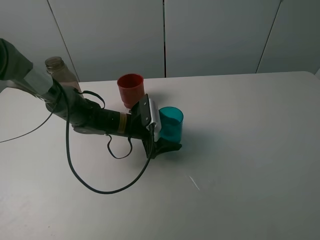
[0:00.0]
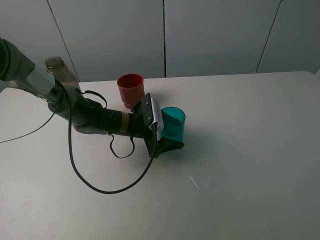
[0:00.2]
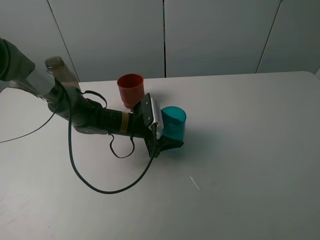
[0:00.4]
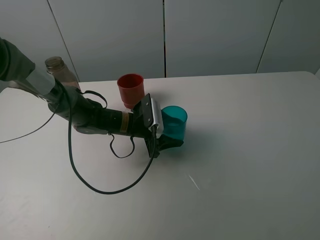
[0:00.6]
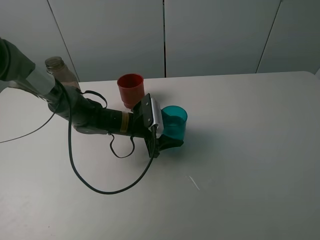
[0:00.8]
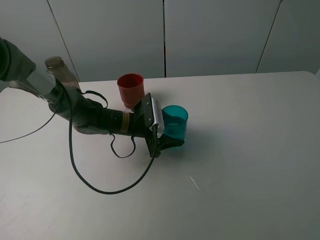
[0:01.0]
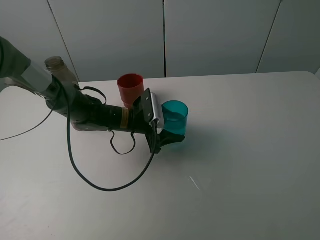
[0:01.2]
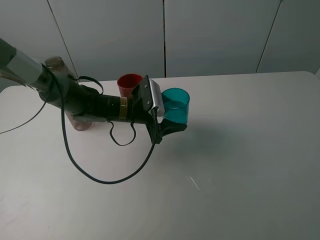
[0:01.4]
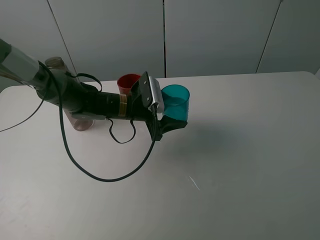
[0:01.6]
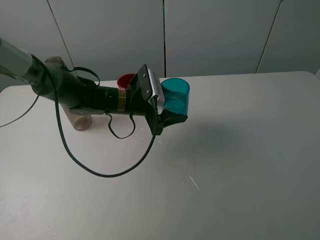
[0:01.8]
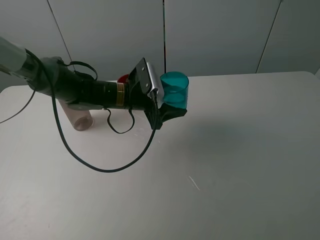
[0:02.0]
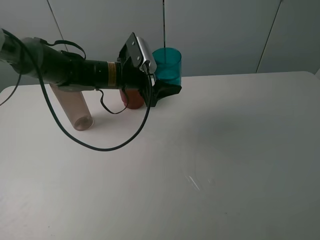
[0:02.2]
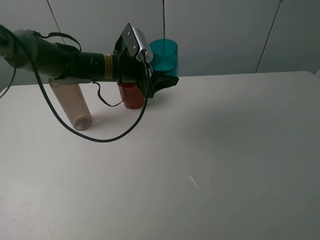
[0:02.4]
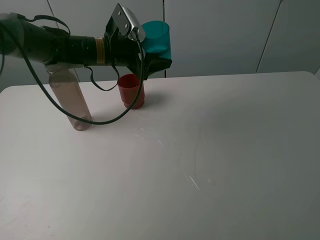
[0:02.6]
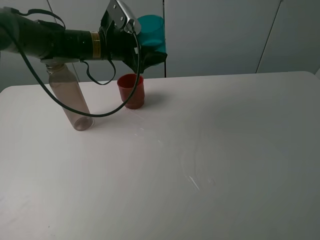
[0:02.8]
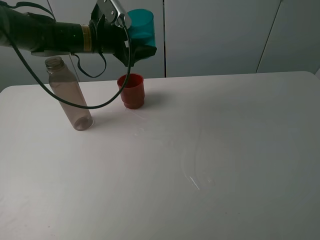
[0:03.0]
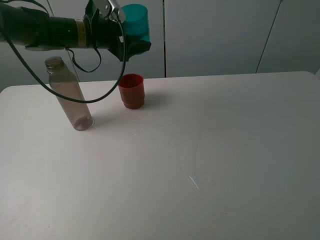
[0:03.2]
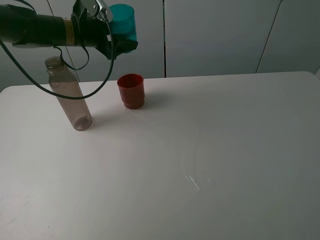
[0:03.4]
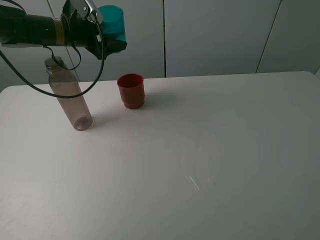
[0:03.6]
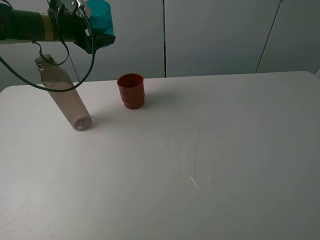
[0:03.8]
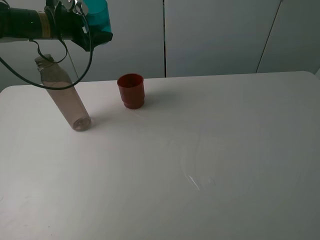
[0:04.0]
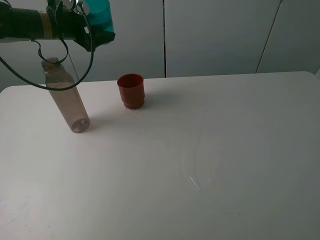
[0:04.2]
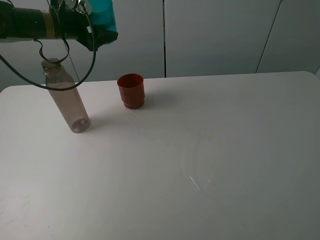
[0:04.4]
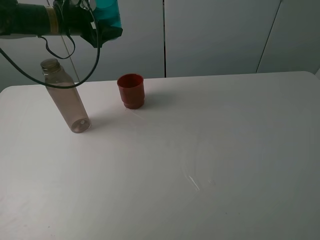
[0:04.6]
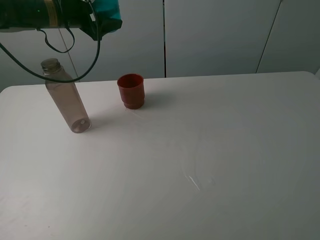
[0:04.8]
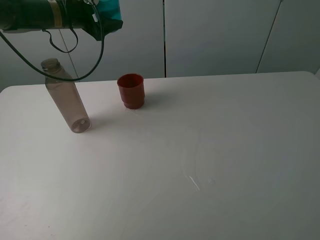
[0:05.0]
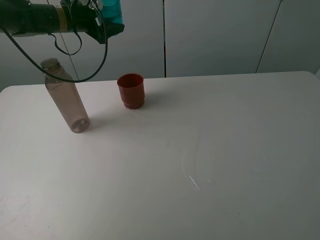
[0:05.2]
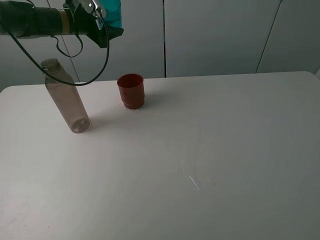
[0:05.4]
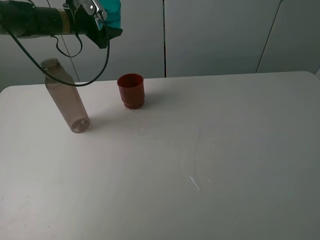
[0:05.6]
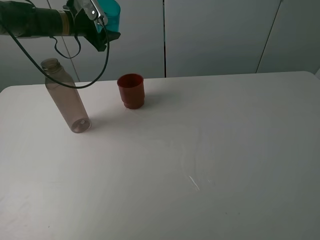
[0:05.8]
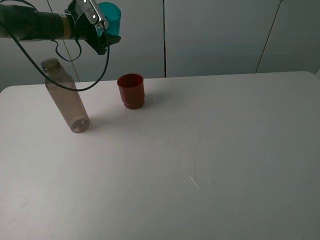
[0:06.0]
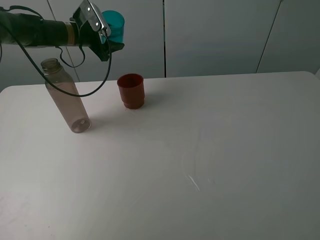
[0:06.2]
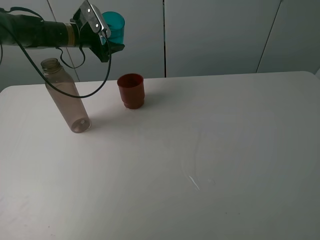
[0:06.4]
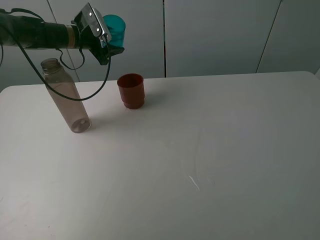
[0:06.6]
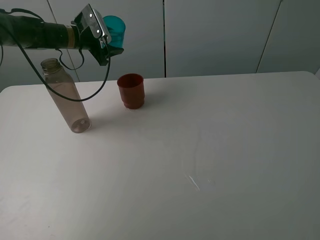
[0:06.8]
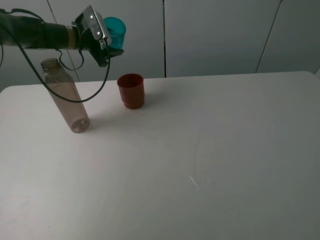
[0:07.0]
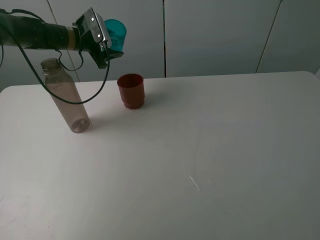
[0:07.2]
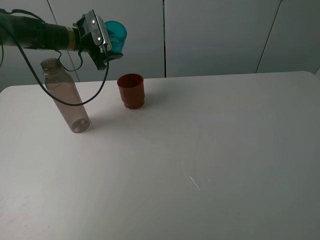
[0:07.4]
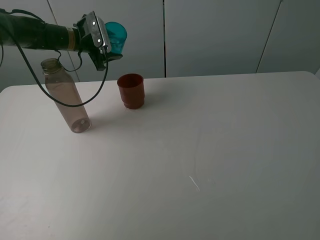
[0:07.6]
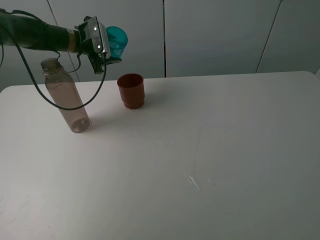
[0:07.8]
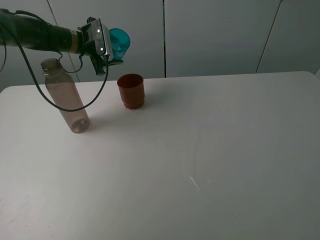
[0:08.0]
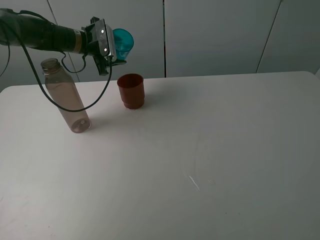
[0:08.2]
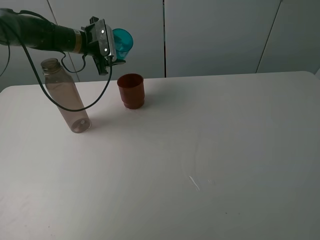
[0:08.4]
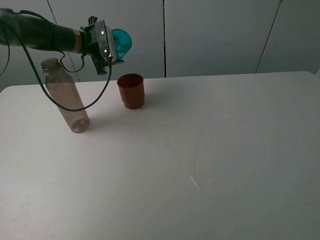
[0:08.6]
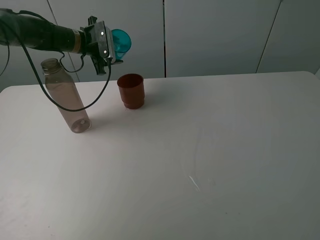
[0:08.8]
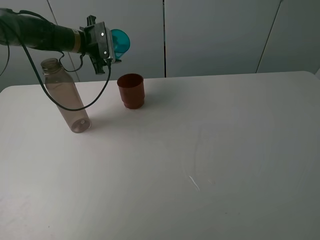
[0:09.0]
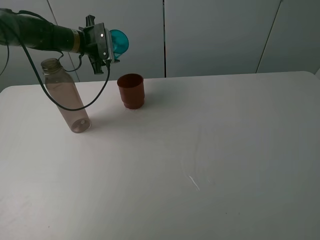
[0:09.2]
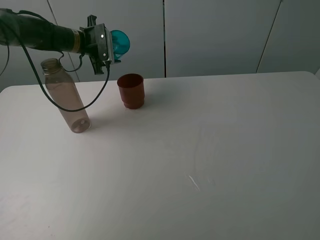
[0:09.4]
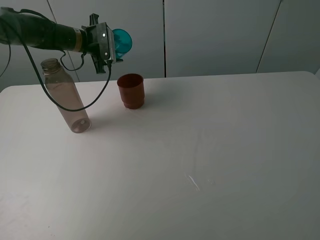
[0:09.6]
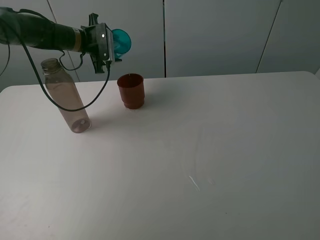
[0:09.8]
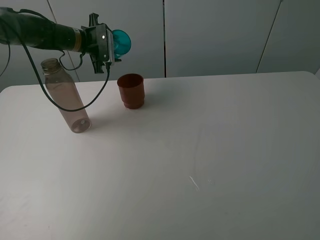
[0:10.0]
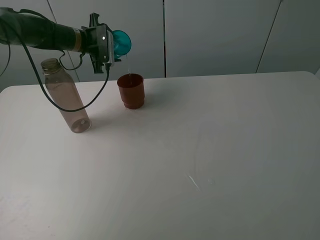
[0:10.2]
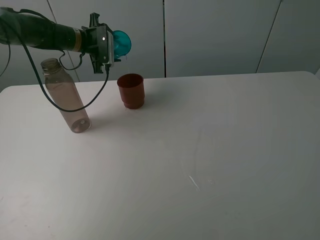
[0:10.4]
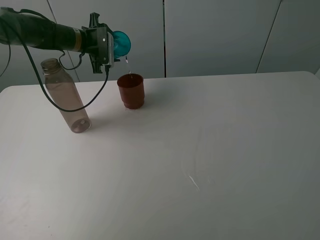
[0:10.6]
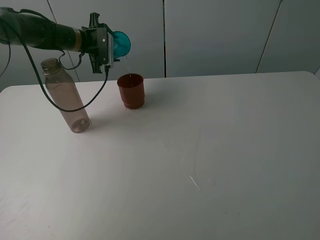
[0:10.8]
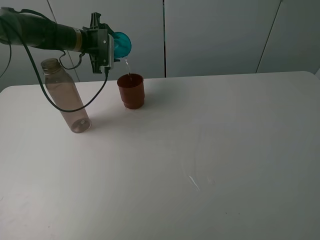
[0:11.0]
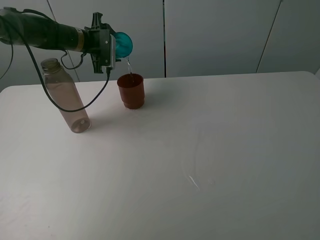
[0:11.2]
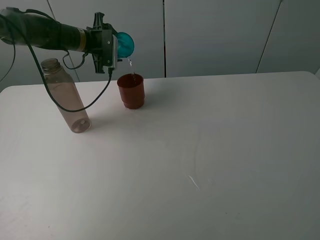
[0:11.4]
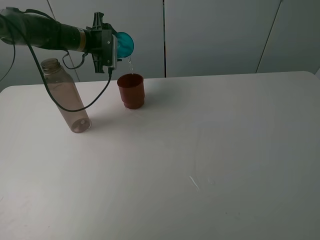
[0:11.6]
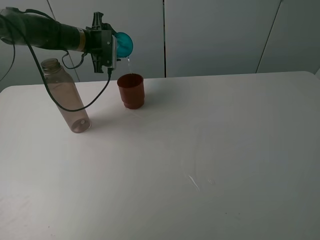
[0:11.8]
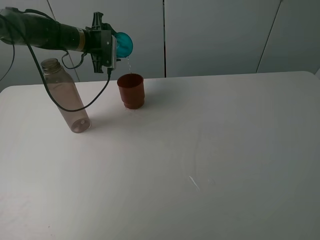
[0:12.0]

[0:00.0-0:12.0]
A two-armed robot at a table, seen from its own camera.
Task of the whole recording: pick up the bottle and pour water into the cup, then pick up the cup containing water and pour it into another cup.
0:00.0 to 0:01.6: The left gripper heads upward, covering about 5 cm, and closes its fingers.
0:01.6 to 0:03.0: The left gripper shifts about 15 cm upward, forward and to the left.
0:03.0 to 0:04.4: The left gripper heads to the left, covering about 10 cm.
0:04.4 to 0:06.0: The left gripper heads forward, covering about 5 cm.
0:06.0 to 0:07.6: The grippers make only small movements.
0:07.6 to 0:09.0: The grippers stay close to where they were, moving slightly.
0:09.0 to 0:12.0: The grippers stay close to where they were, moving slightly.

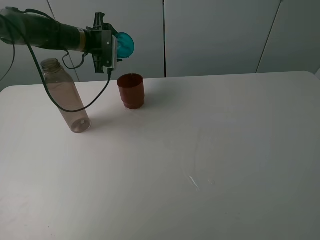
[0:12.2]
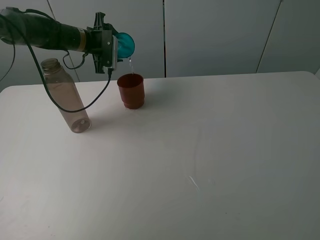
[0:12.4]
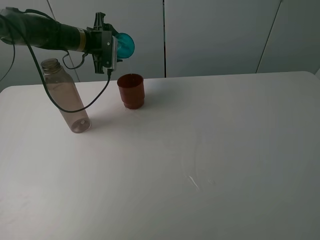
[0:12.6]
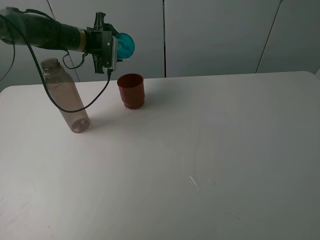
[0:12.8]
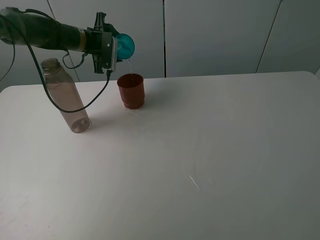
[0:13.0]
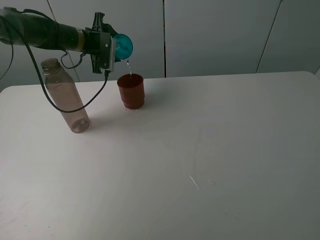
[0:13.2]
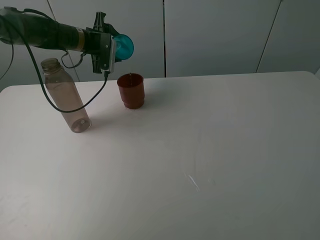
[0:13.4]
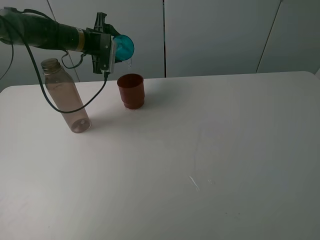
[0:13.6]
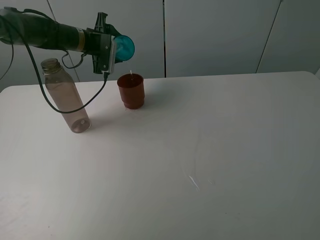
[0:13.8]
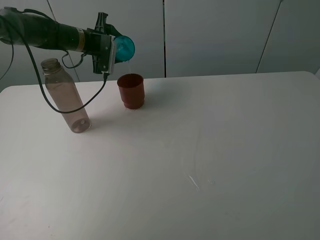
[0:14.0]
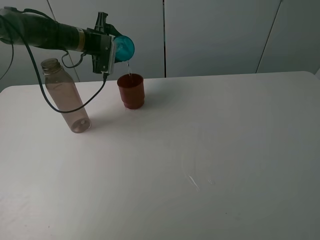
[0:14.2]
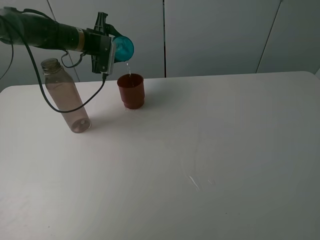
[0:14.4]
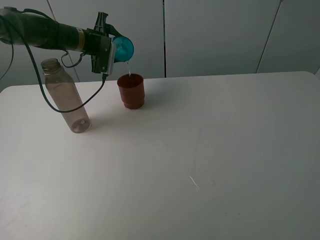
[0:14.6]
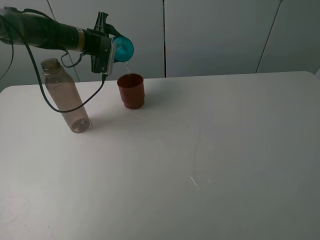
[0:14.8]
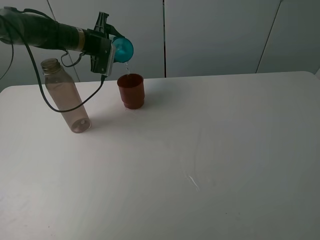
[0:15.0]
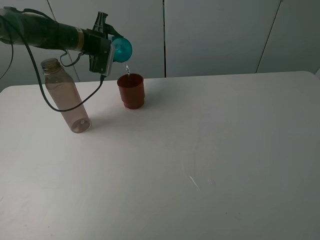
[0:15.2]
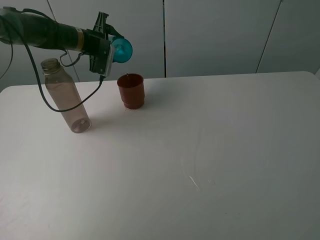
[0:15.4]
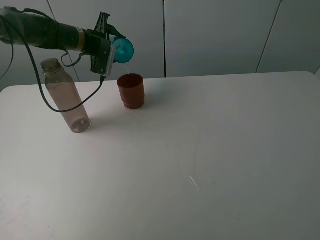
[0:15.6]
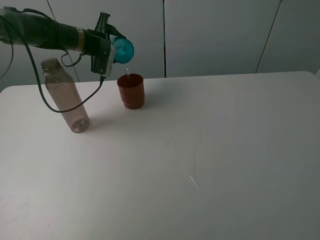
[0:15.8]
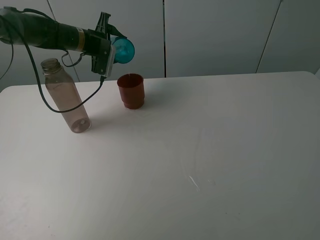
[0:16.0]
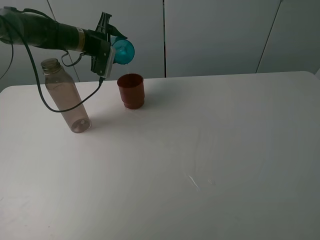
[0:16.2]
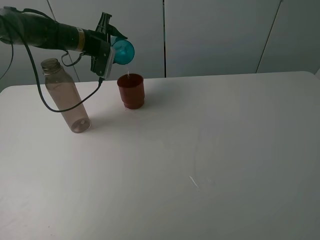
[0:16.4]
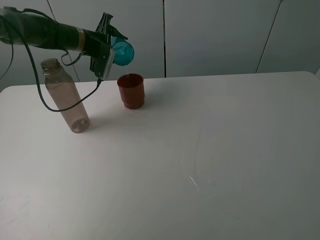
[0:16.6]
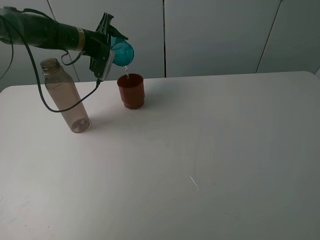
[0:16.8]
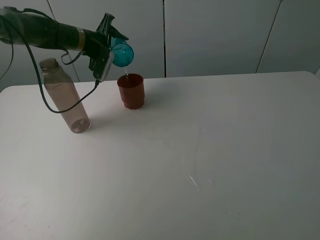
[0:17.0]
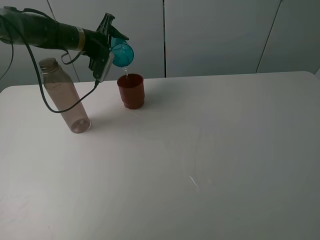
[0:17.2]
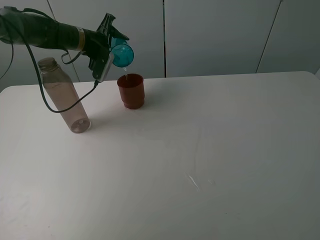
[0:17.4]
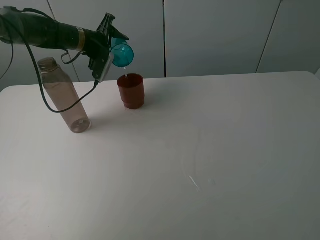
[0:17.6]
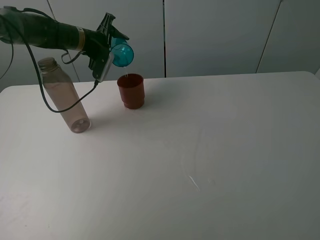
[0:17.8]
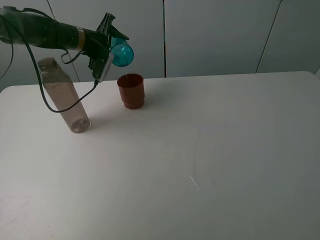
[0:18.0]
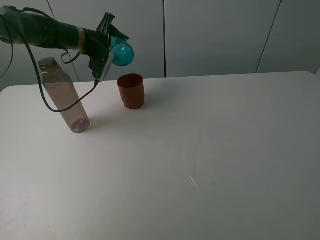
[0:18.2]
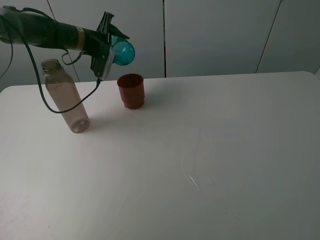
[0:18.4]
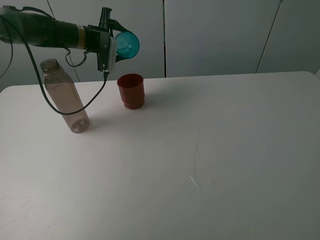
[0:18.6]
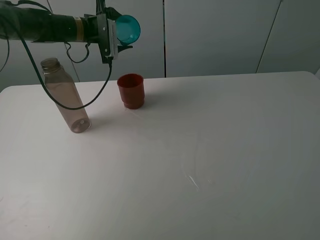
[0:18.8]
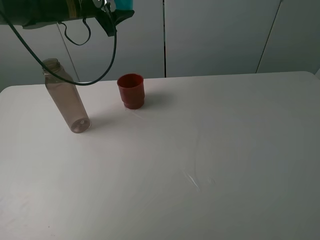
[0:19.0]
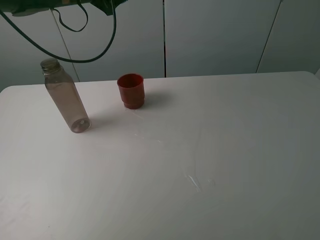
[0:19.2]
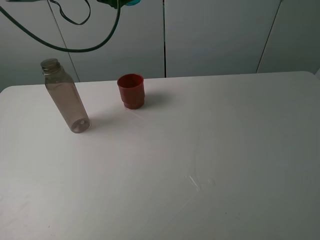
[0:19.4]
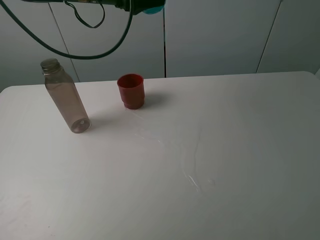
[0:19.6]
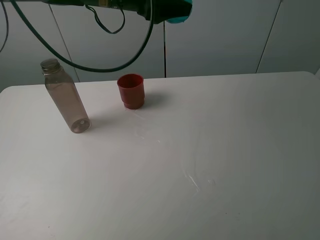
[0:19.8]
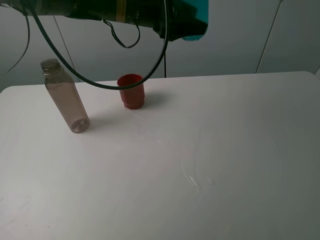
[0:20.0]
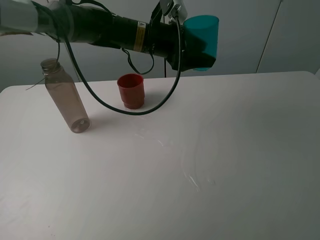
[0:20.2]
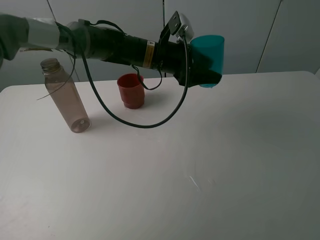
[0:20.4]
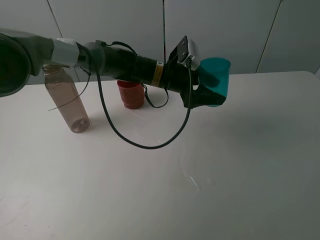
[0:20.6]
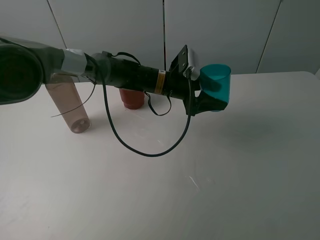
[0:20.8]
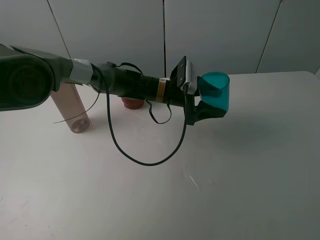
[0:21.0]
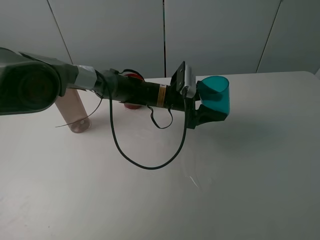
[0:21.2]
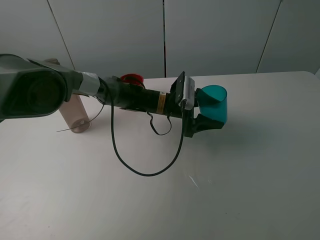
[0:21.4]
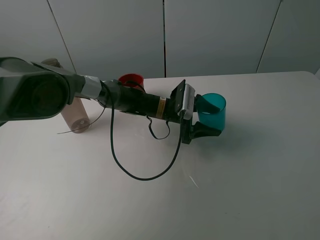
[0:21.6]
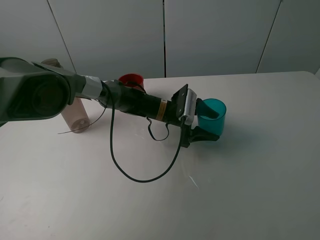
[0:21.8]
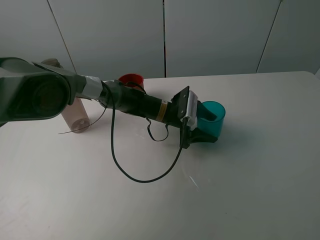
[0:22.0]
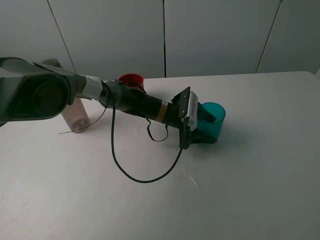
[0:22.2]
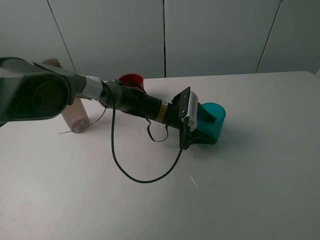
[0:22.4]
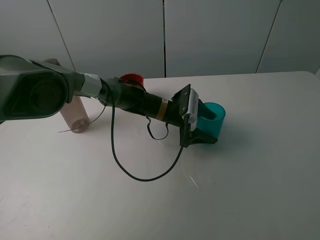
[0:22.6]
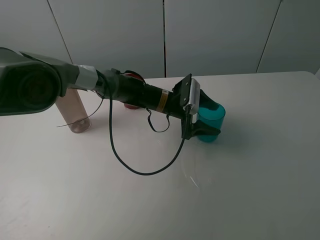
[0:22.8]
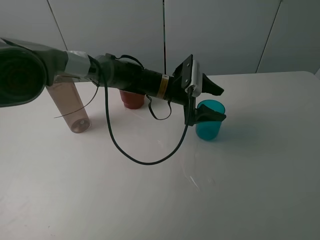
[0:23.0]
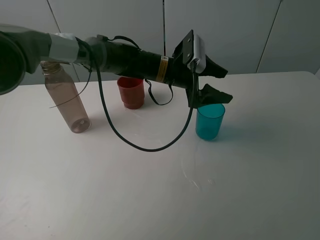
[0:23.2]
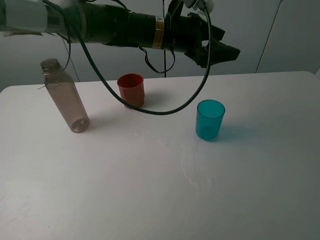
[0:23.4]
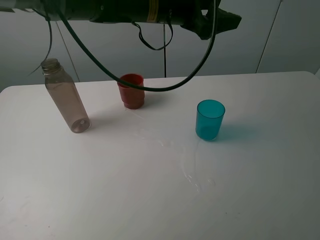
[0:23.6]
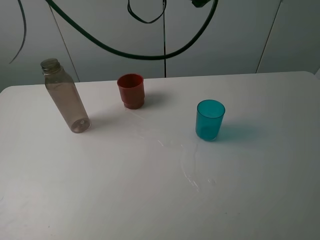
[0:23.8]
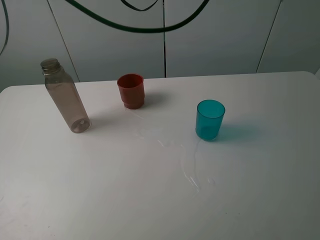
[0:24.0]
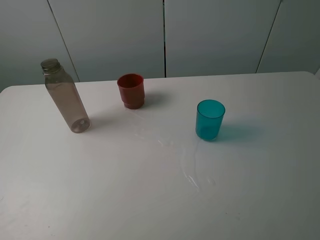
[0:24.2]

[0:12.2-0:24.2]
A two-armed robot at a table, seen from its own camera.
Task of the whole recording: pick up the bottle and pour water into the cup, then pick up the cup containing water and pour it into another cup.
0:12.2 to 0:15.2: There are only small adjustments of the grippers.
0:15.2 to 0:18.2: The grippers move only a little.
0:18.2 to 0:19.8: The left gripper goes approximately 20 cm to the right, upward and backward.
0:19.8 to 0:21.2: The left gripper moves downward and to the right, approximately 25 cm.
0:21.2 to 0:22.6: The left gripper opens its fingers.
0:22.6 to 0:24.2: The left gripper shifts about 30 cm upward.
